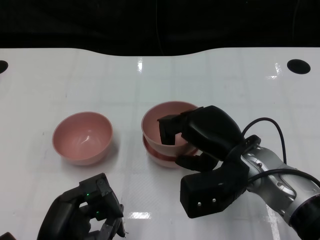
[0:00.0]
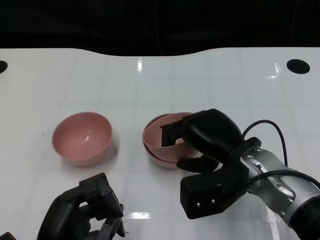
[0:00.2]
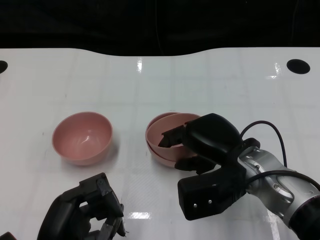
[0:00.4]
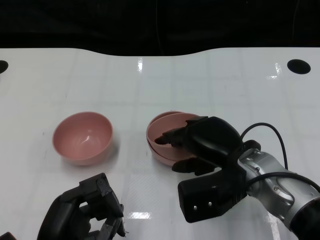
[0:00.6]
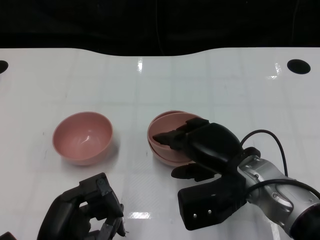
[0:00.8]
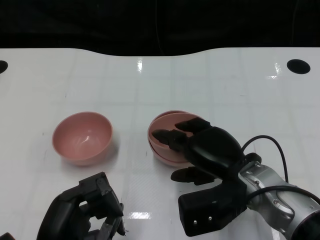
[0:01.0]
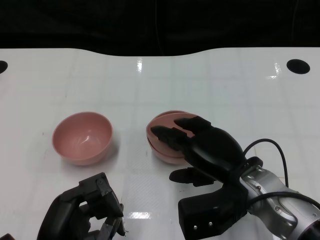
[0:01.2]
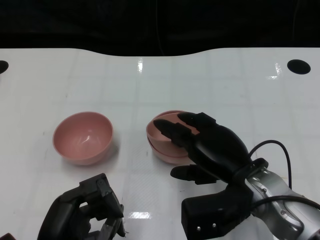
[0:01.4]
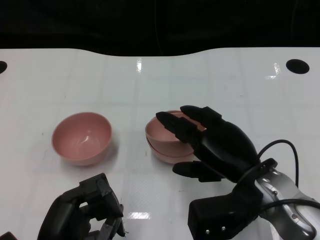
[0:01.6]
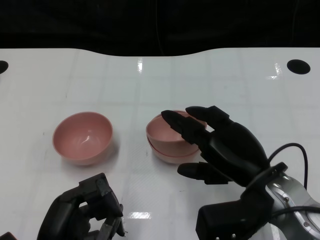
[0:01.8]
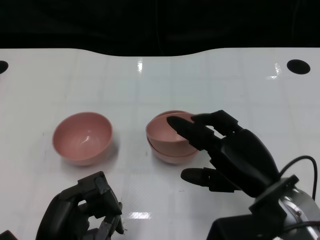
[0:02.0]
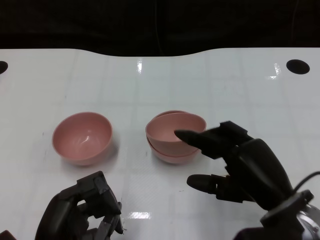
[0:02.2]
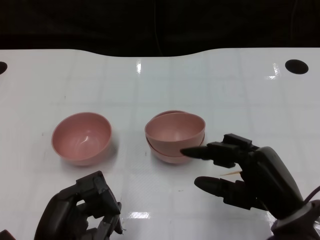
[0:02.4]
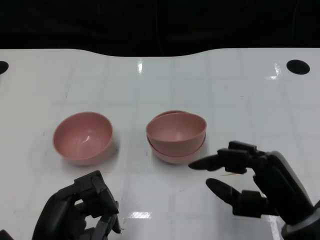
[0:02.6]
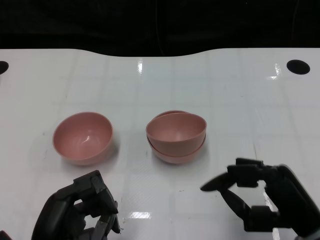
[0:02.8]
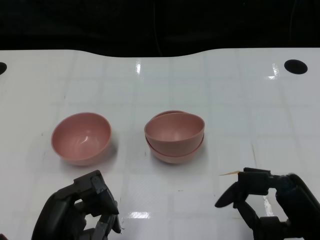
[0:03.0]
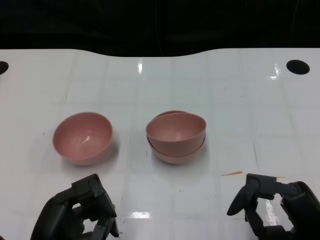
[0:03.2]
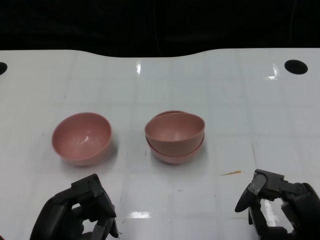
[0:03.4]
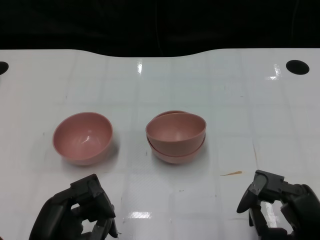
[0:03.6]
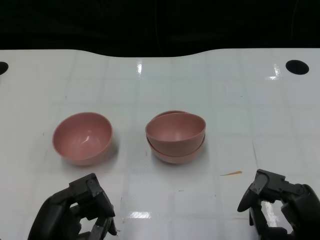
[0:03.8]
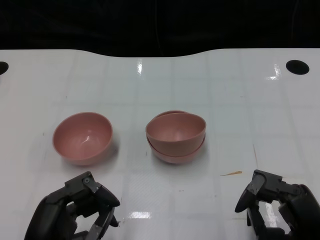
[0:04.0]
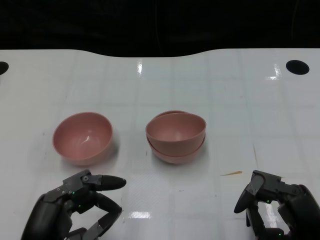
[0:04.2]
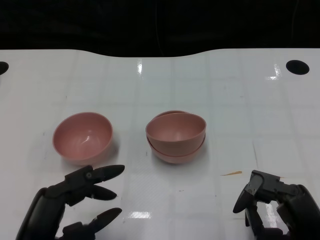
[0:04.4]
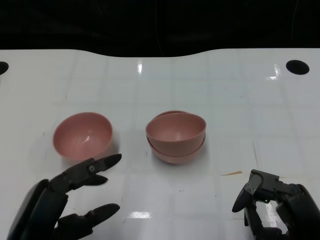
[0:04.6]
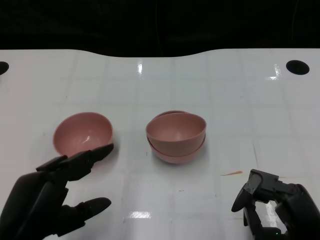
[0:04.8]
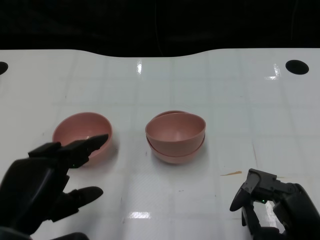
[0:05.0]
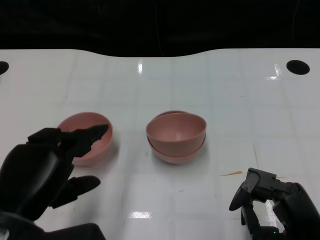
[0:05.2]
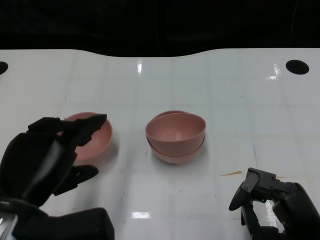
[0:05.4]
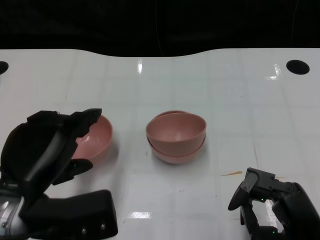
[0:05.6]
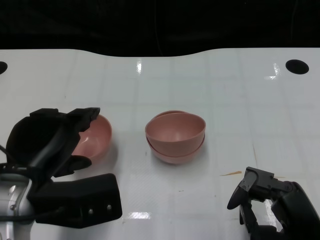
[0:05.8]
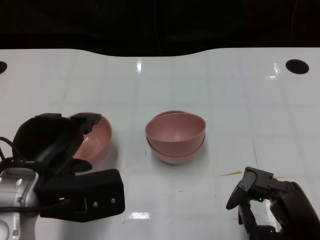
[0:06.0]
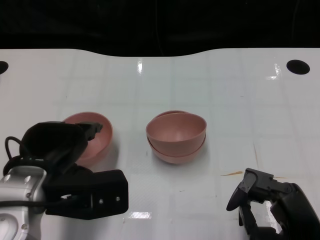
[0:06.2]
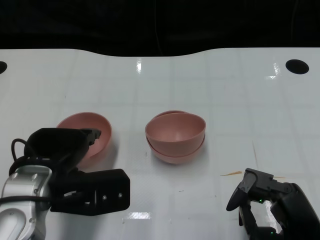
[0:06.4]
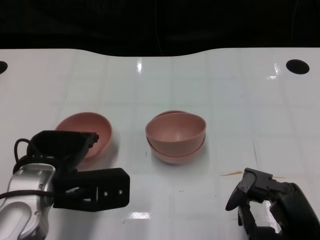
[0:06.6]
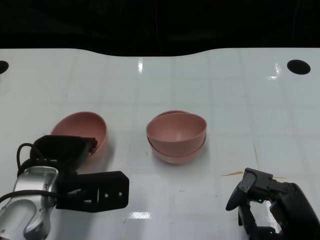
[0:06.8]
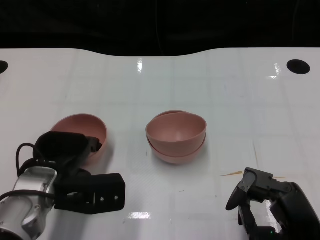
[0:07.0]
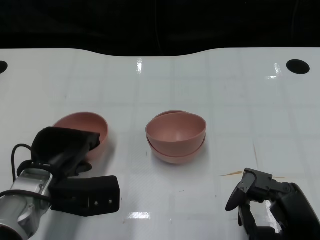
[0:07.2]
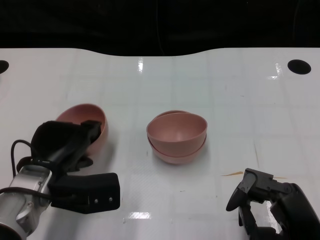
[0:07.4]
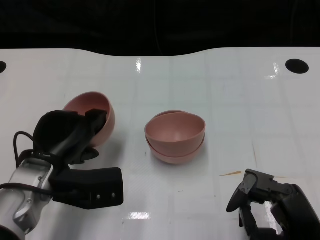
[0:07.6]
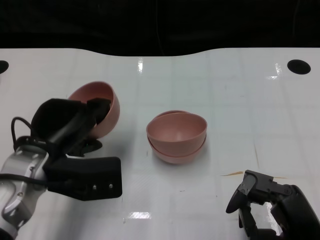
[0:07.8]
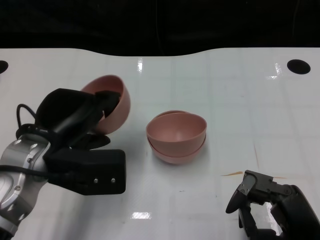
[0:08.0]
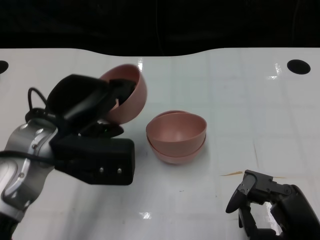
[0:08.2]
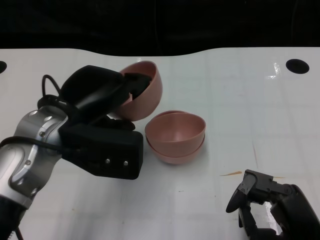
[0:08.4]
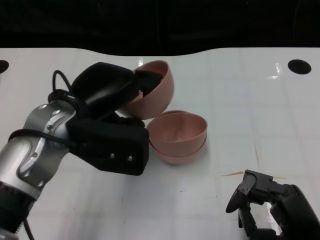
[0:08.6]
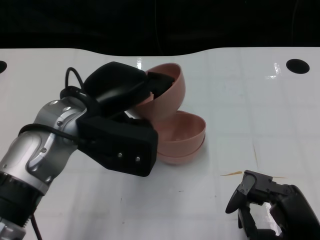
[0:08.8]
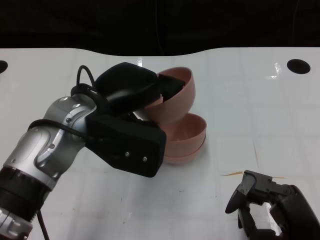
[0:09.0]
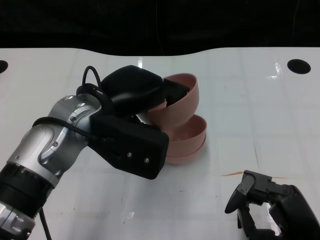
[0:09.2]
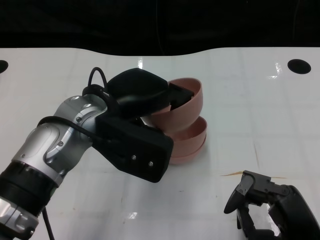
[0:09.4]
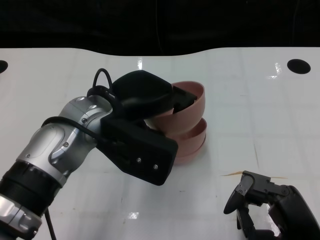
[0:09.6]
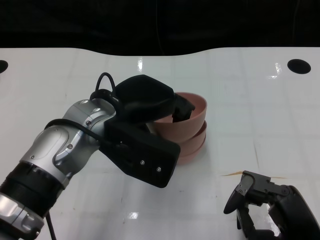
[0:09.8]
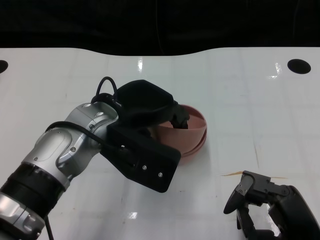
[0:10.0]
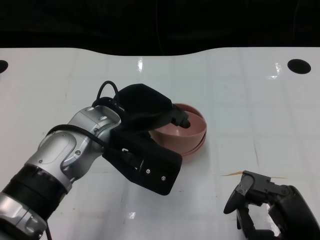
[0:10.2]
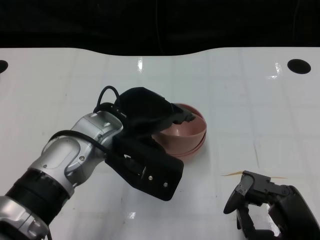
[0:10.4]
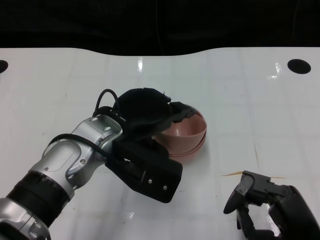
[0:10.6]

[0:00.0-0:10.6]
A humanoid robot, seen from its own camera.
Task of the whole recording: Pick up the bowl on one side of the table and place it on top of the middle bowl, then pick up the bowl on the other side of the table and place it on top of the middle bowls.
Step, 0:00.0 to 0:02.0: Place the bowl on the right onto the bowl in the middle with right gripper.
Step, 0:02.2 to 0:07.2: Grasp the bowl on the left with the left gripper.
0:00.0 to 0:01.6: There are only small adjustments of the hands.
0:01.6 to 0:03.0: The right hand travels to the right and backward by approximately 10 cm.
0:04.6 to 0:06.0: The left hand shifts approximately 10 cm forward.
0:06.0 to 0:07.6: The left hand goes approximately 5 cm downward.
0:07.6 to 0:09.0: The left hand travels upward and to the right by some 10 cm.

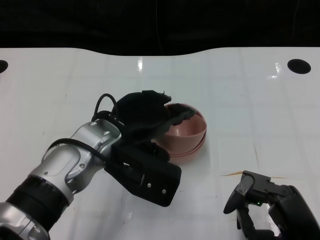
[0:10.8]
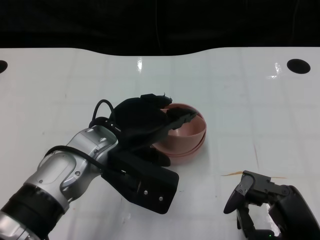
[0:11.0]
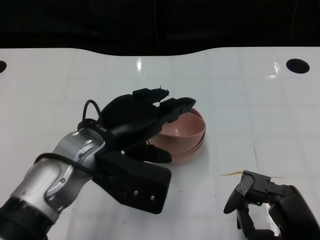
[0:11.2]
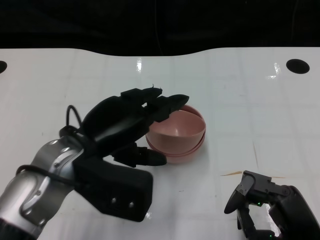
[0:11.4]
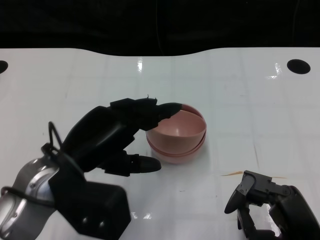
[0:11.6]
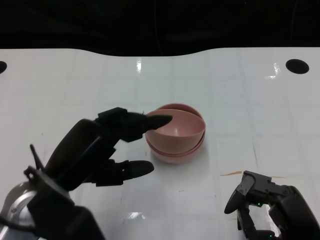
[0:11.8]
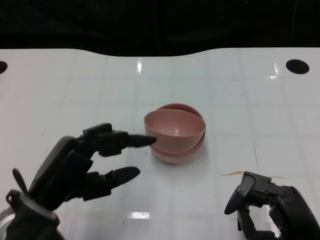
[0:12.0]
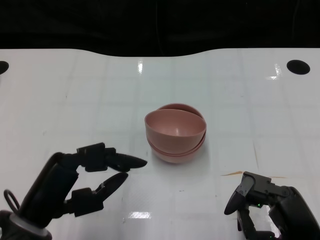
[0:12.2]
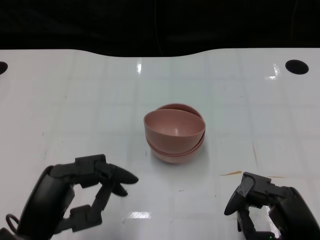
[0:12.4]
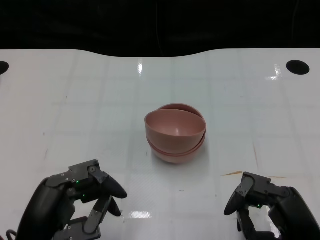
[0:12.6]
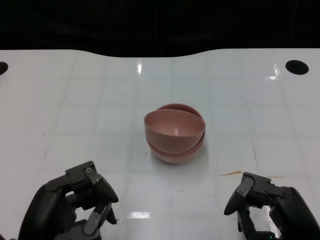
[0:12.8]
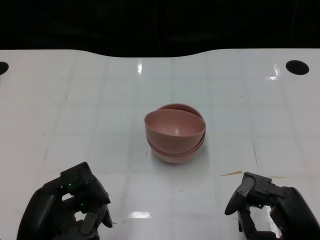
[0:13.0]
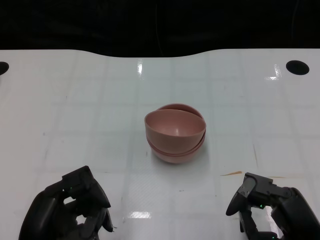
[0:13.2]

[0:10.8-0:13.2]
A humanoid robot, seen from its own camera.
Task of the whole recording: Pick up the bowl on one side of the table and place it on top of the middle bowl, then pick up the bowl on the other side of the table and place it on top of the middle bowls.
0:10.8 to 0:12.0: The left hand heads to the left and backward, covering about 15 cm.
0:12.0 to 0:13.2: The left hand is displaced backward by some 5 cm.
